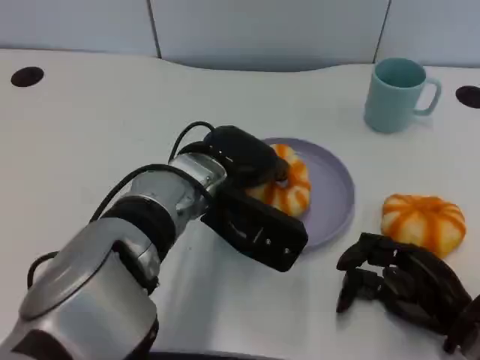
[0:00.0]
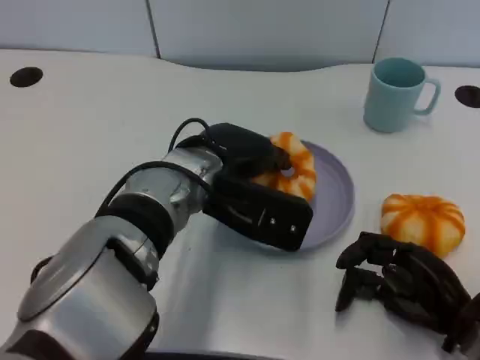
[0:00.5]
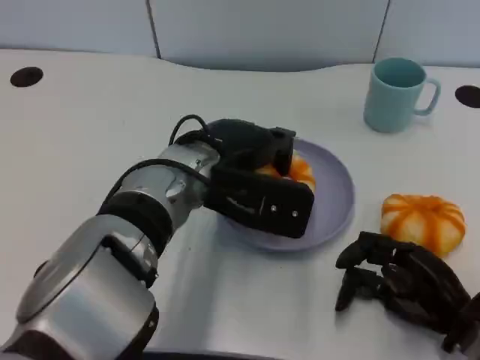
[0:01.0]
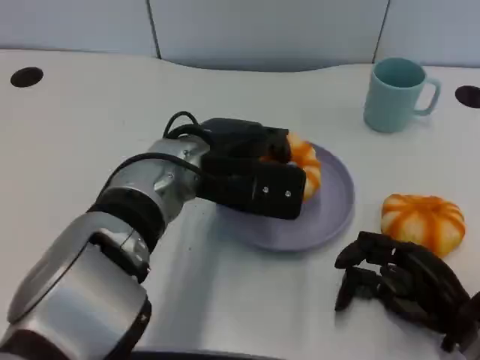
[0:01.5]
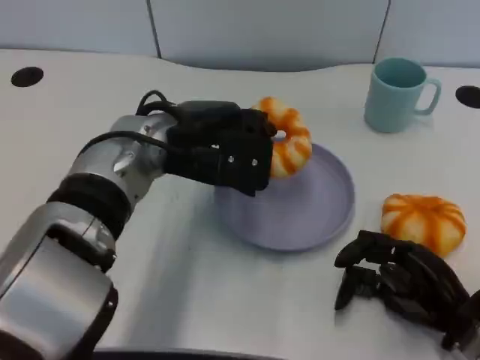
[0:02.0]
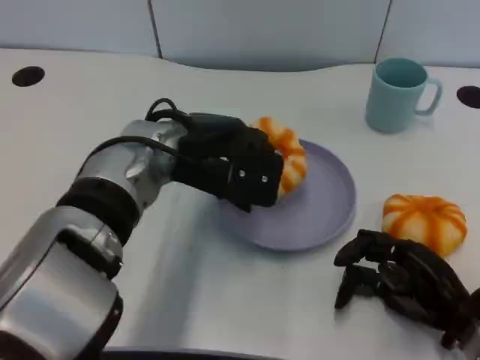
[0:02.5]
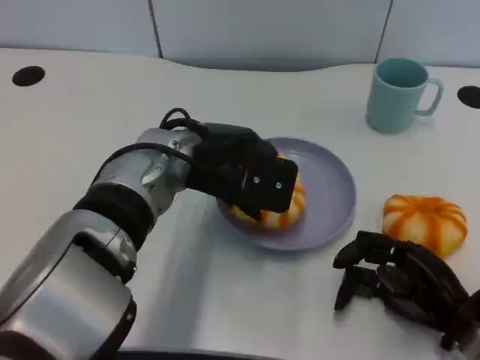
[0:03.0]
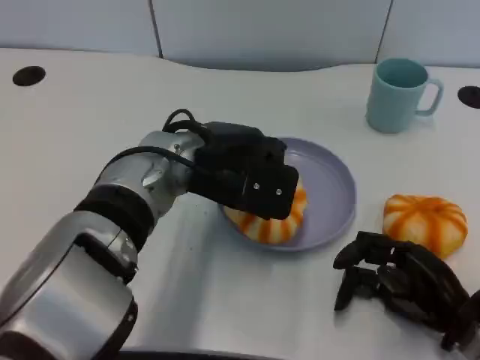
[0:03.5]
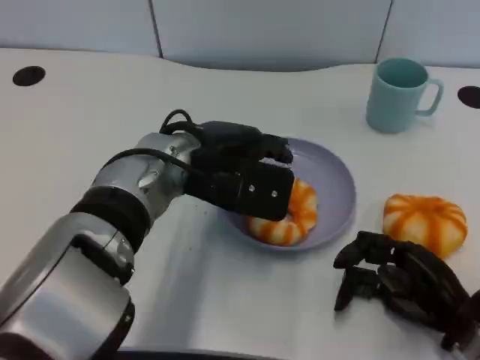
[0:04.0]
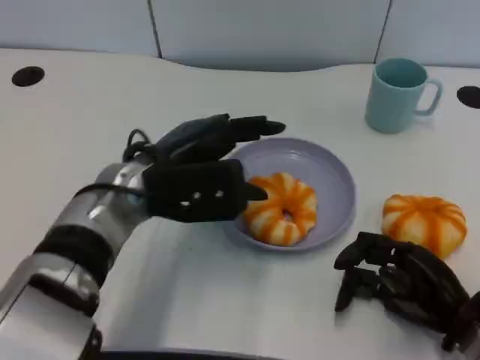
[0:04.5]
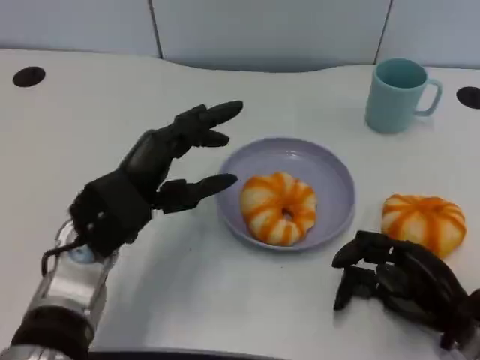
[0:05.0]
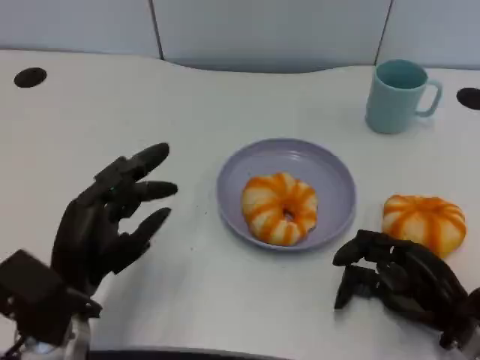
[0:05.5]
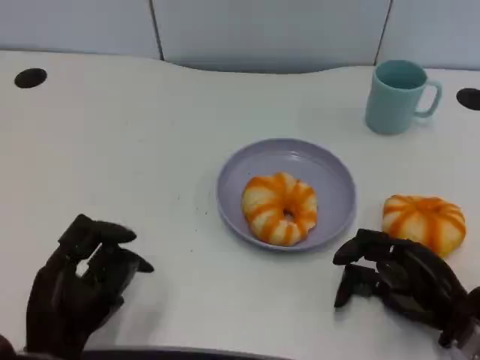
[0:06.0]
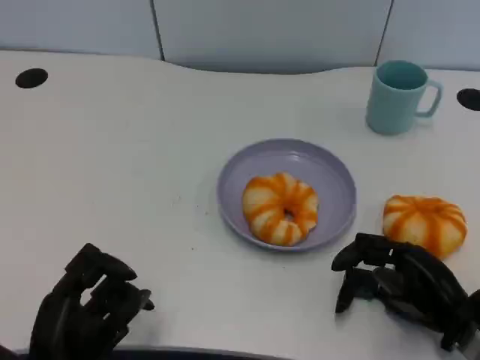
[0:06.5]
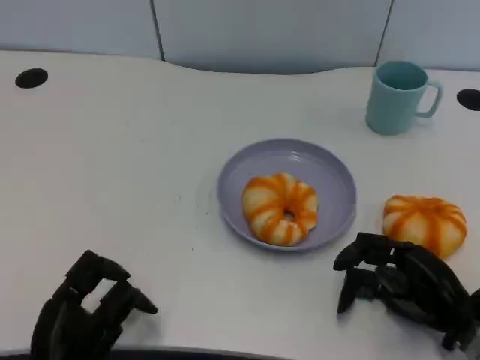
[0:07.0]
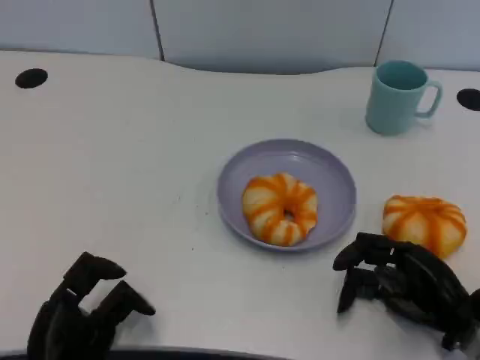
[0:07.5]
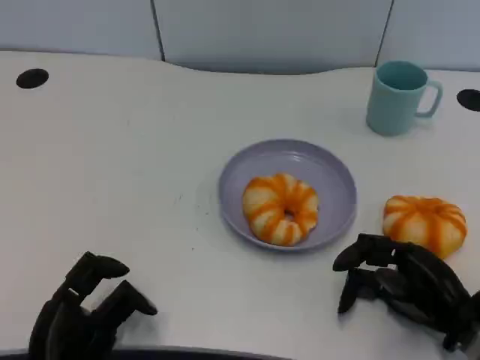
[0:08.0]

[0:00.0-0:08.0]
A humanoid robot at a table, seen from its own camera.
Task of the whole recording: Grasp the bread from the table and place it into the plate.
0:00.0 to 0:02.0: The left hand changes place by about 5 cm.
0:02.0 to 0:04.0: The hands make only small movements.
0:04.0 to 0:06.0: The left hand is displaced backward, to the left and downward by some 25 cm.

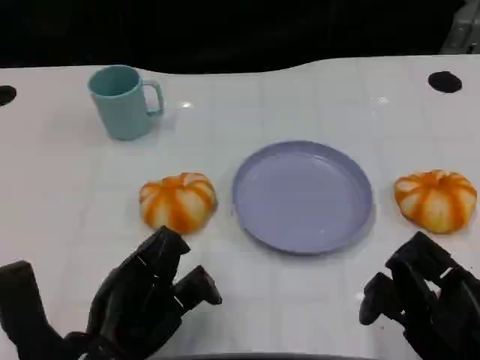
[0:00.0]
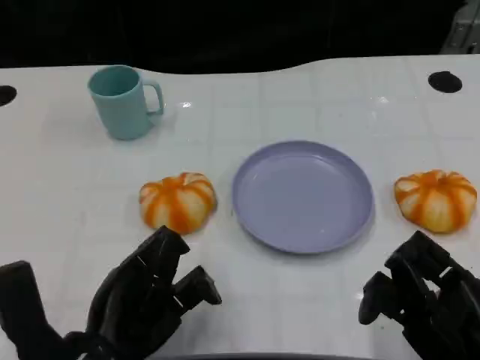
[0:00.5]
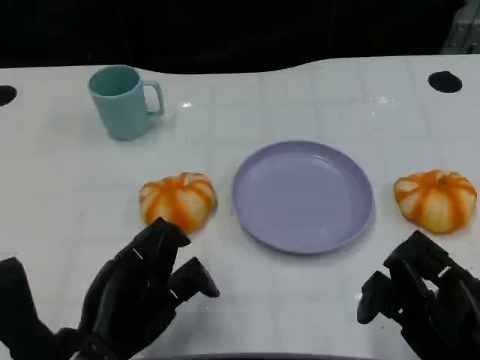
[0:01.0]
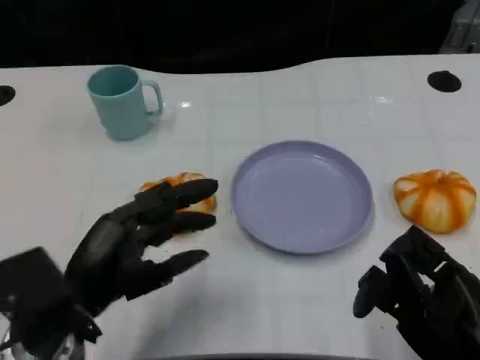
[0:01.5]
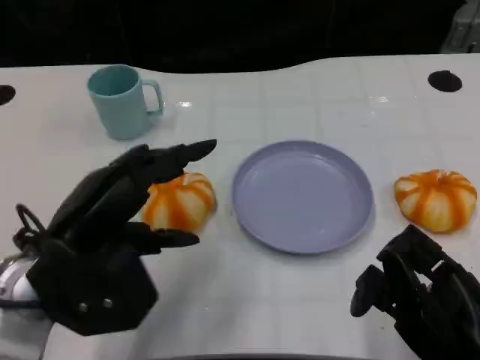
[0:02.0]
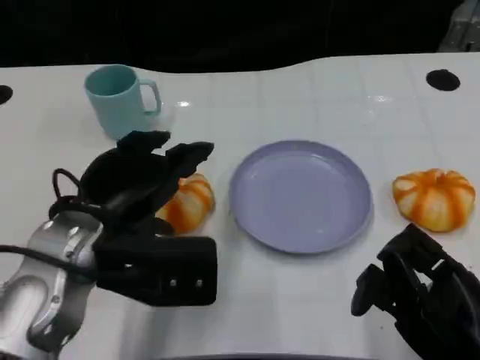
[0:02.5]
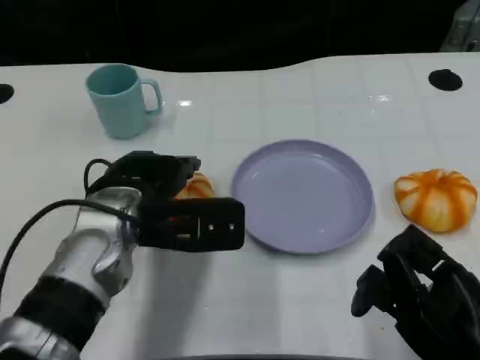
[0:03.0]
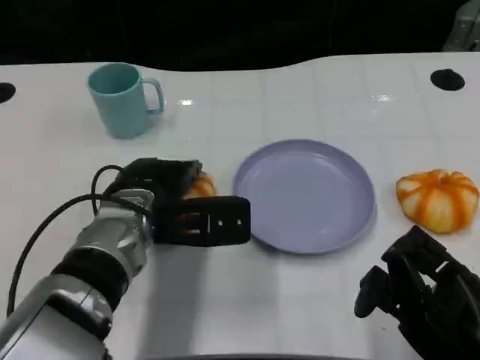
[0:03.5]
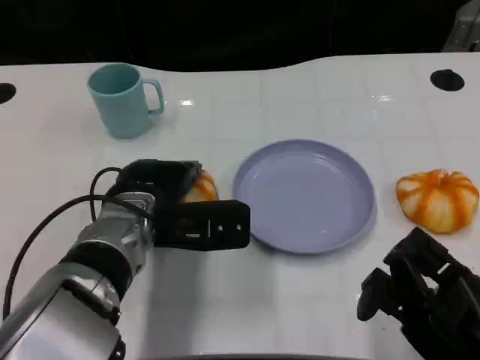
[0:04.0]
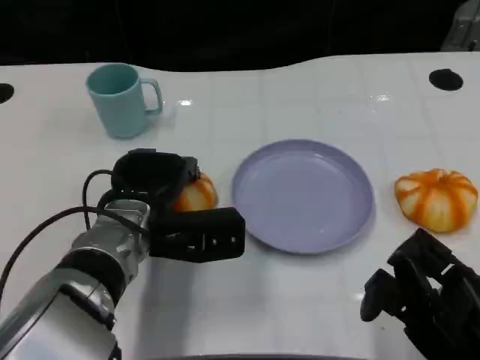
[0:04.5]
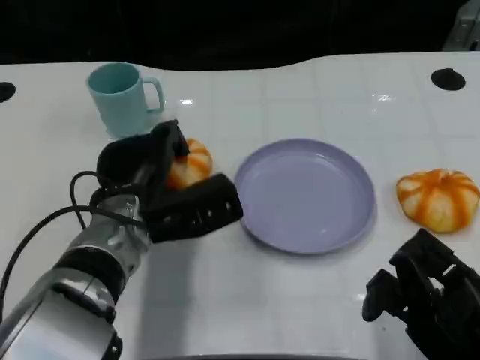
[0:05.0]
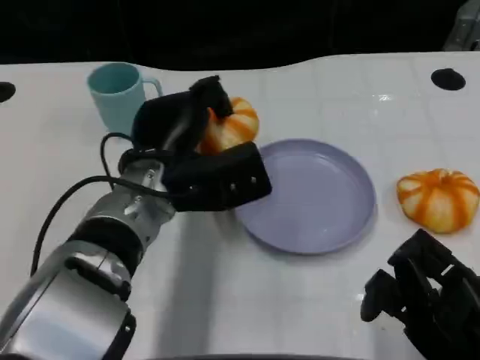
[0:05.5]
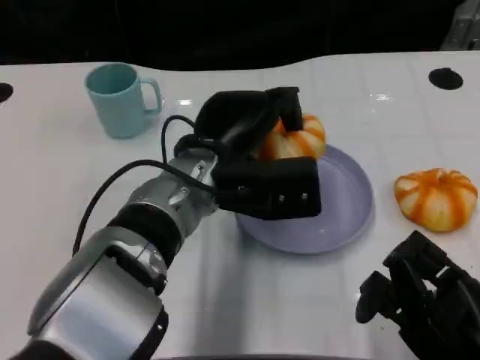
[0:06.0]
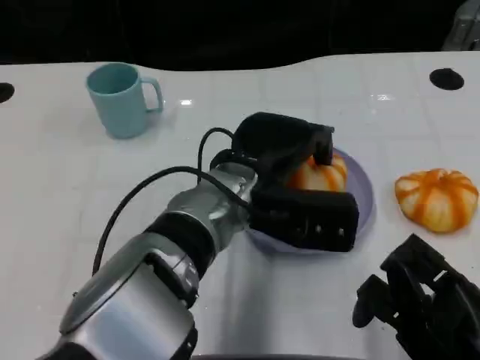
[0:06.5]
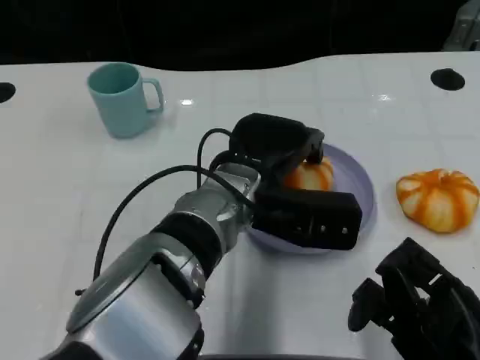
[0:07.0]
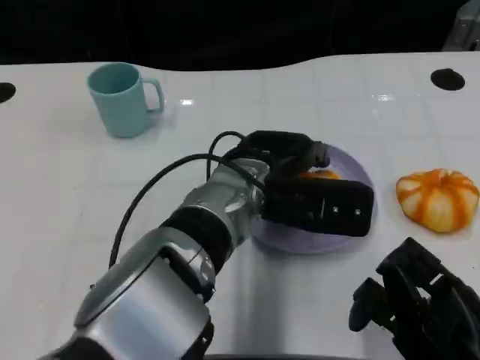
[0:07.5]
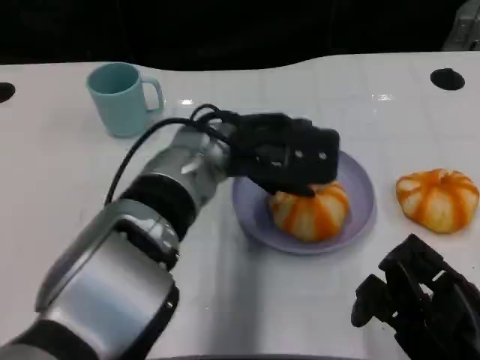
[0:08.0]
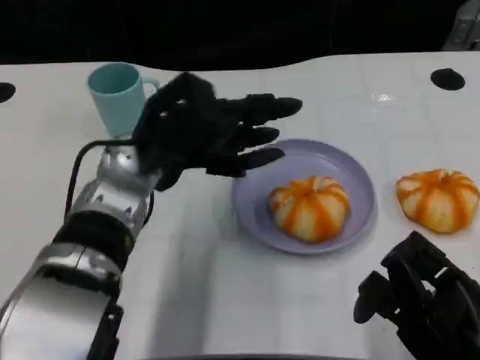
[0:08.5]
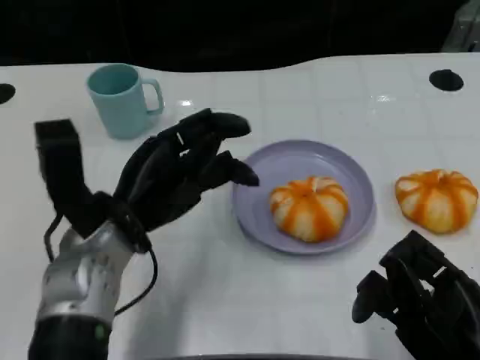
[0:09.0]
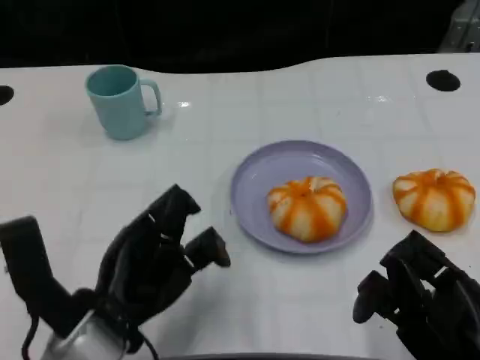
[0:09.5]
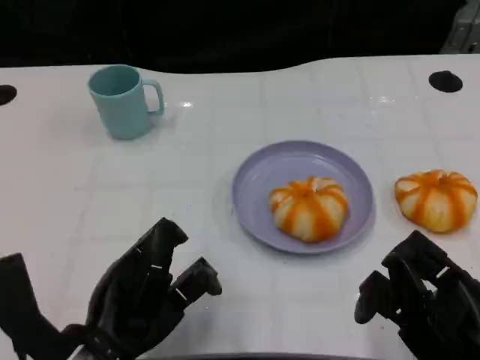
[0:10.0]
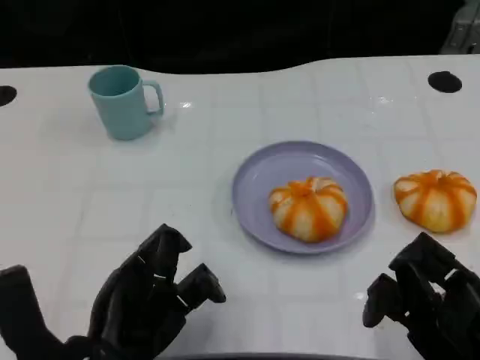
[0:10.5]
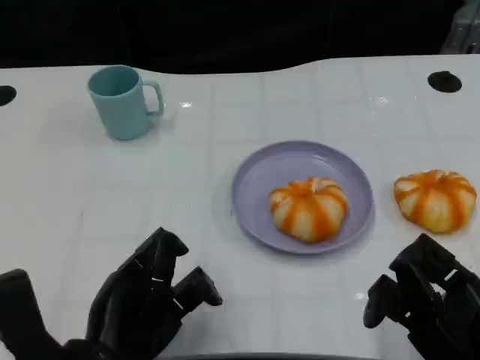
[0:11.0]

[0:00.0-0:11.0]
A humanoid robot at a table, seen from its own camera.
Task of the whole recording: Grasp the bread from the table and place it into the plate.
0:00.0 to 0:02.0: The left hand goes some 10 cm upward and forward.
0:02.0 to 0:03.5: The left hand is displaced forward, to the right and downward by approximately 15 cm.
0:05.5 to 0:07.5: The left hand goes roughly 10 cm to the right.
0:07.5 to 0:09.0: The left hand goes approximately 15 cm to the left.
0:09.0 to 0:11.0: The left hand shifts about 10 cm backward.

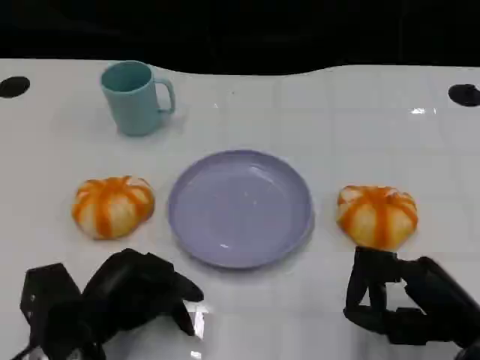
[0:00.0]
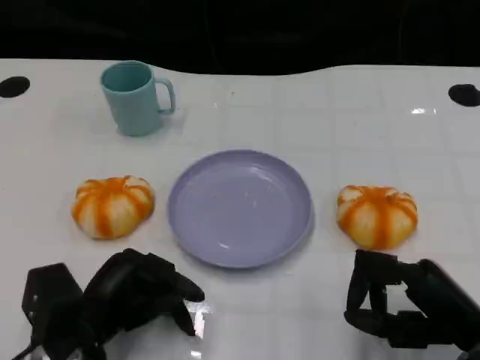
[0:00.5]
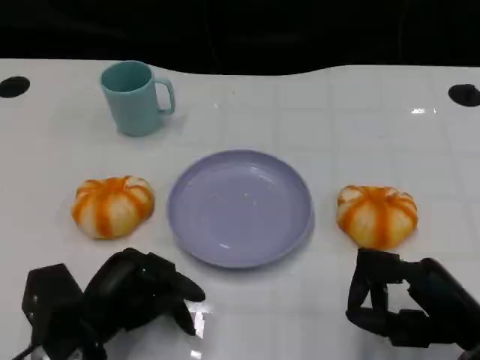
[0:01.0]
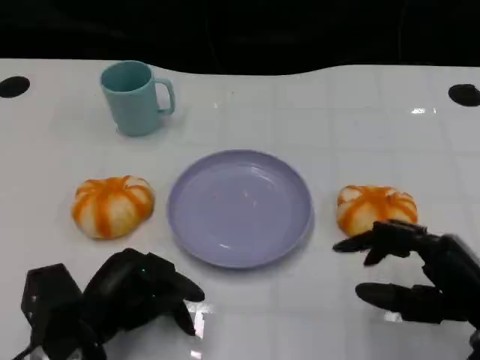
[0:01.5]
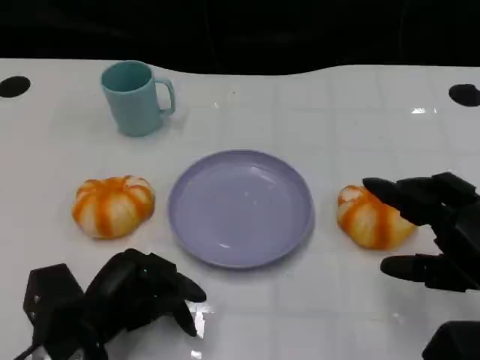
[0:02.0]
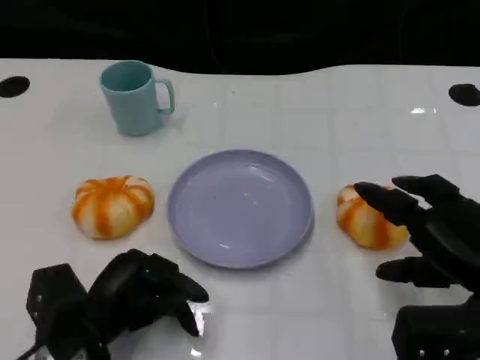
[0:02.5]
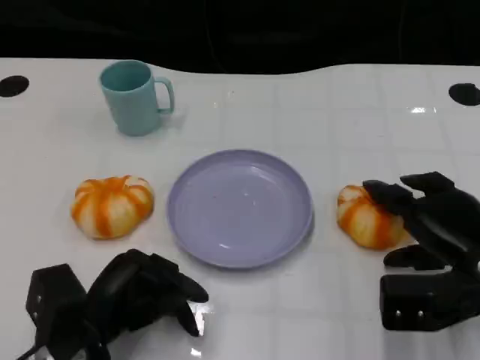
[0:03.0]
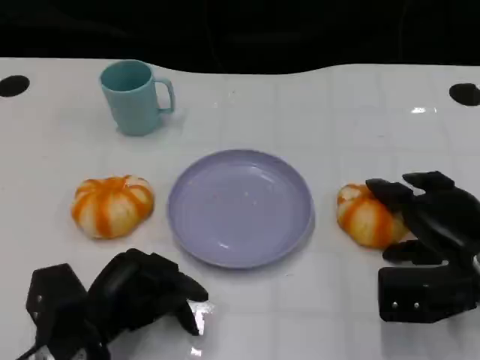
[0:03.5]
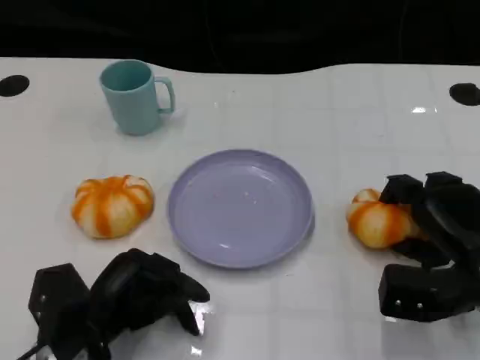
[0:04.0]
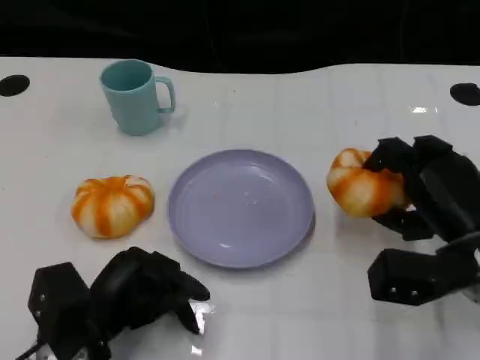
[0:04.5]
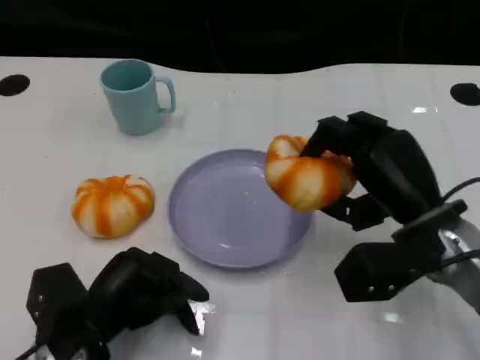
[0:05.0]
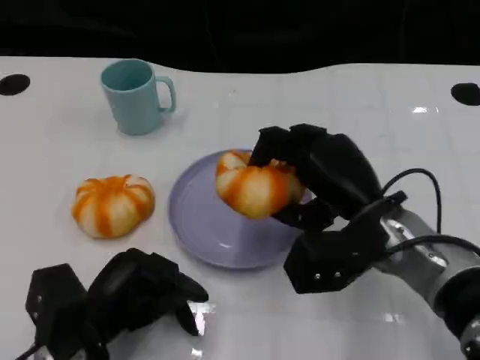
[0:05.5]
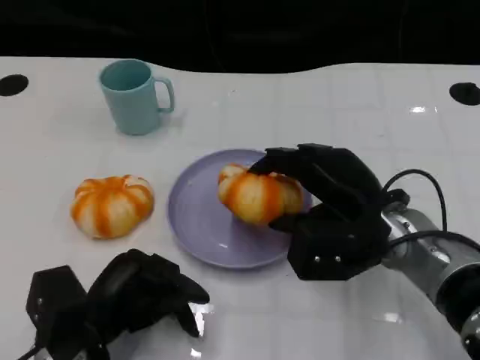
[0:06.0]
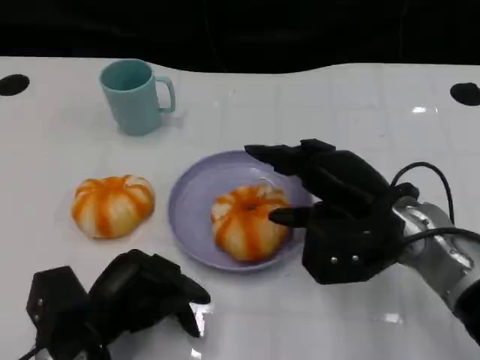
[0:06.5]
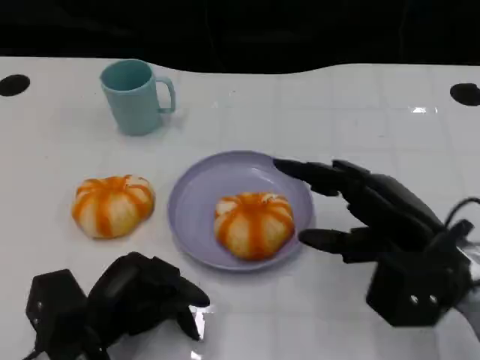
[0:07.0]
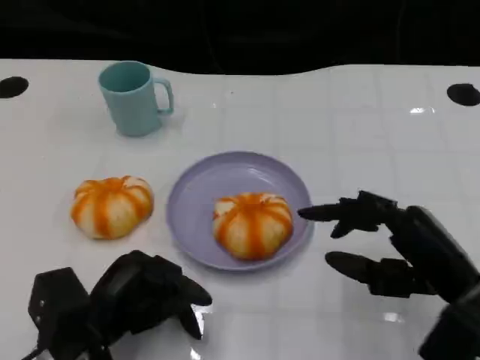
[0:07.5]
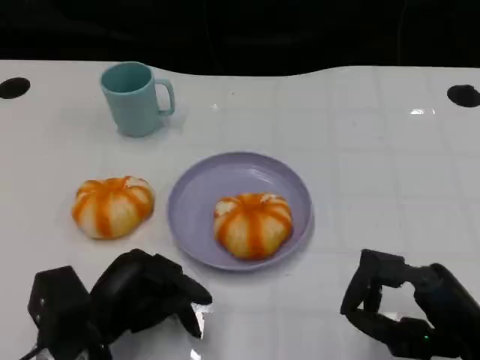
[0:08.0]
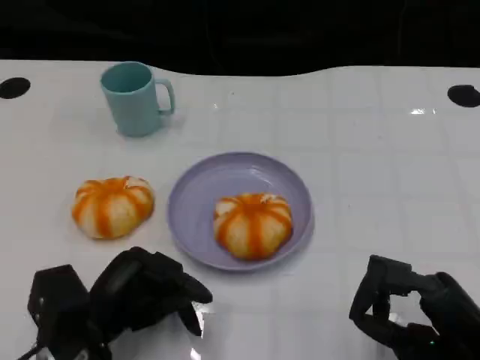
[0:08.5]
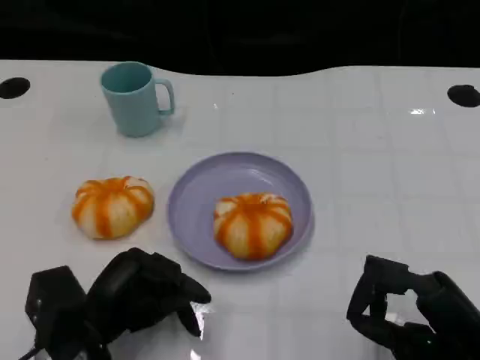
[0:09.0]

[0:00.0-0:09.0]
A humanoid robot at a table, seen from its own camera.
Task of the whole recording: Grasp the bread from the table and place it into the plate.
0:00.0 to 0:02.0: The right hand shifts about 5 cm upward.
0:02.0 to 0:04.5: The right hand goes approximately 10 cm forward.
0:04.5 to 0:07.0: The right hand reaches approximately 10 cm to the left, then returns.
0:07.0 to 0:09.0: The right hand goes about 10 cm backward and downward.
